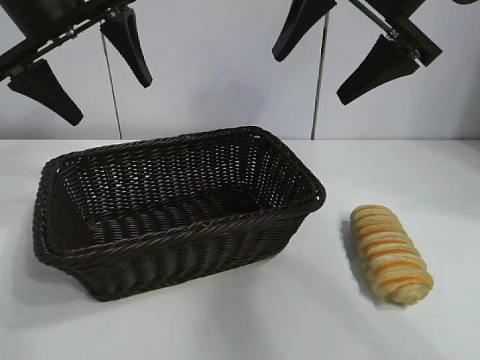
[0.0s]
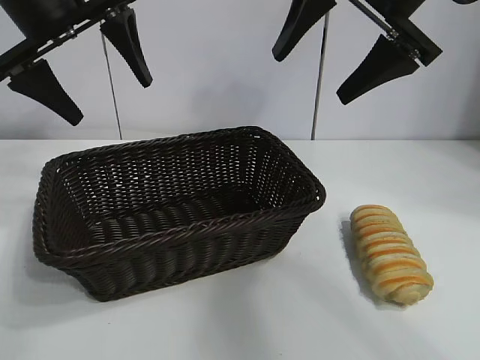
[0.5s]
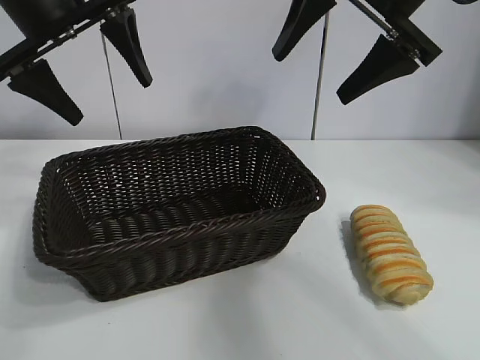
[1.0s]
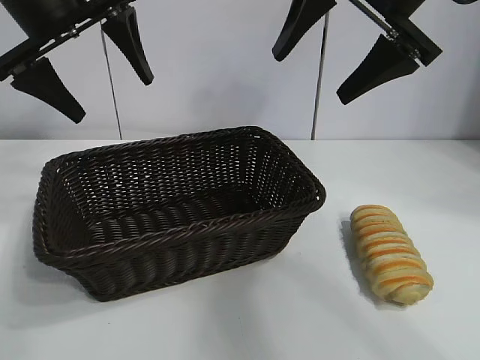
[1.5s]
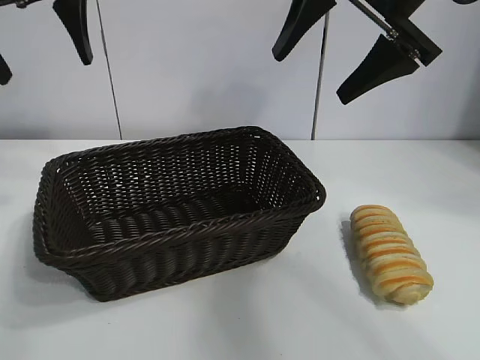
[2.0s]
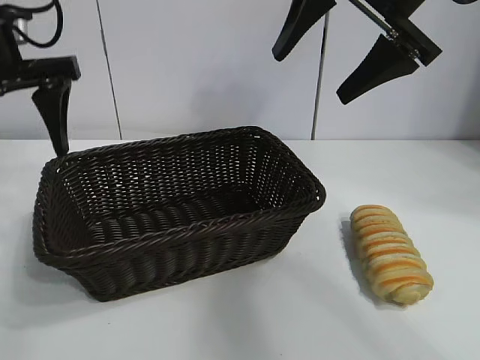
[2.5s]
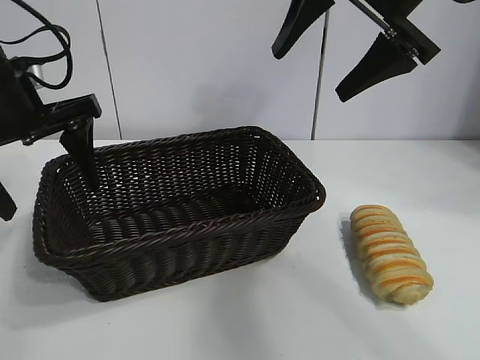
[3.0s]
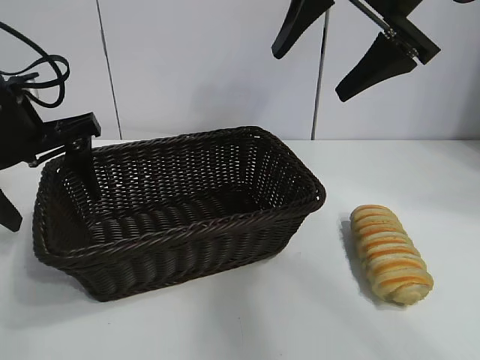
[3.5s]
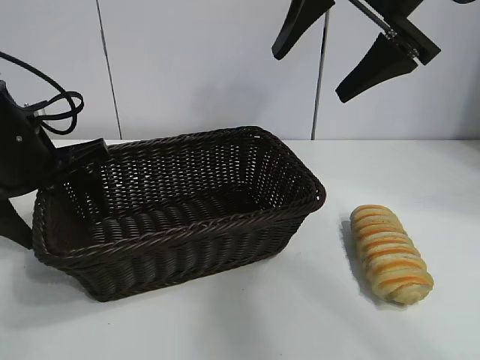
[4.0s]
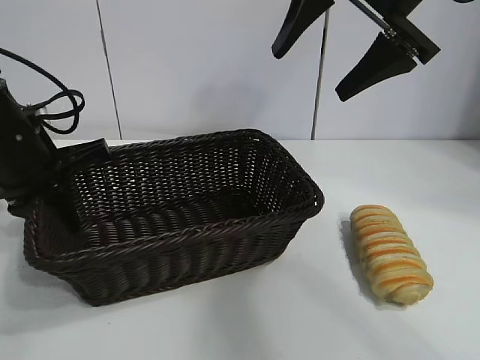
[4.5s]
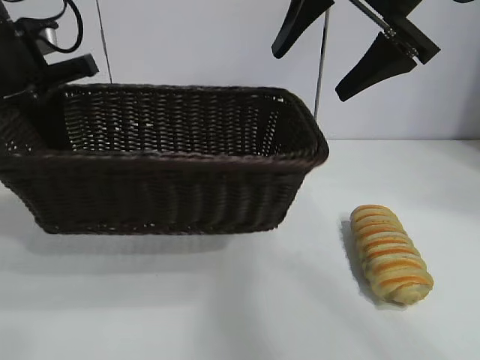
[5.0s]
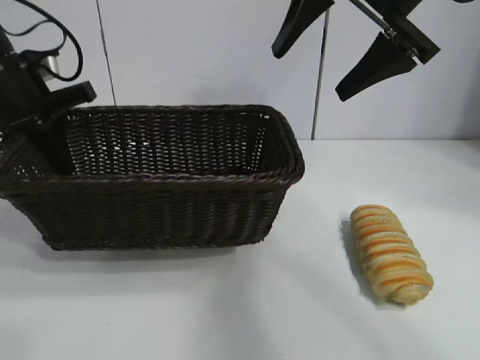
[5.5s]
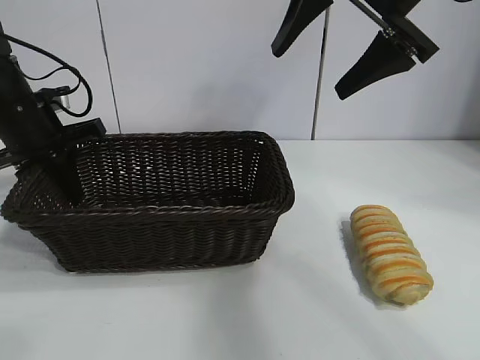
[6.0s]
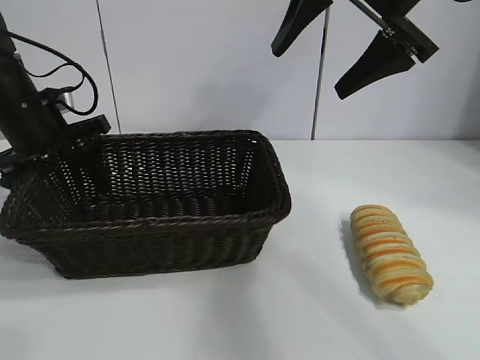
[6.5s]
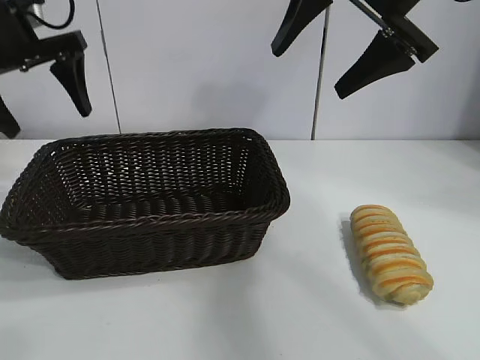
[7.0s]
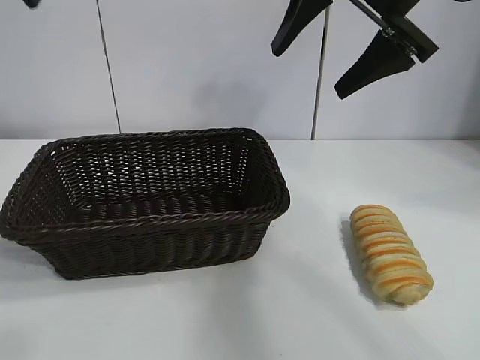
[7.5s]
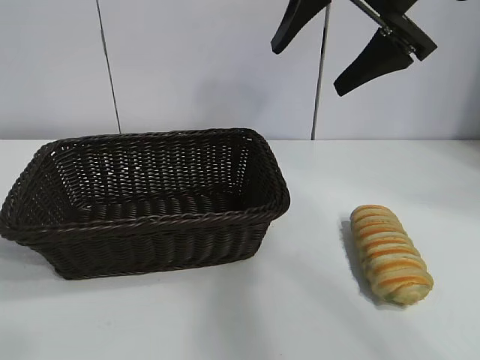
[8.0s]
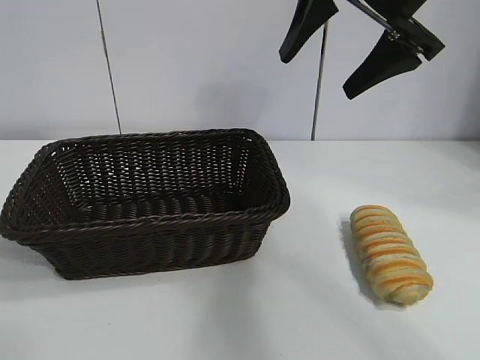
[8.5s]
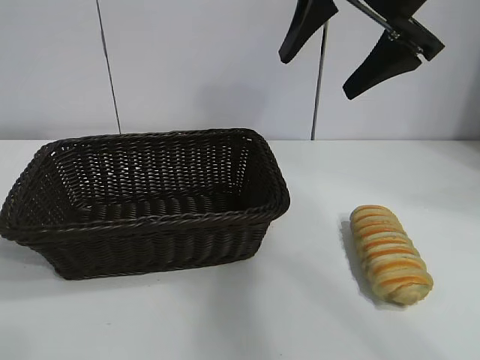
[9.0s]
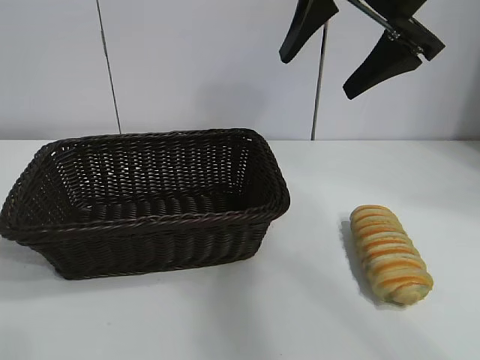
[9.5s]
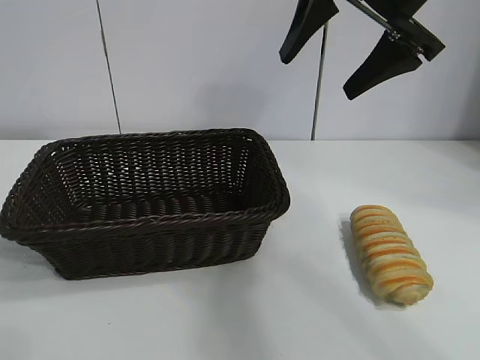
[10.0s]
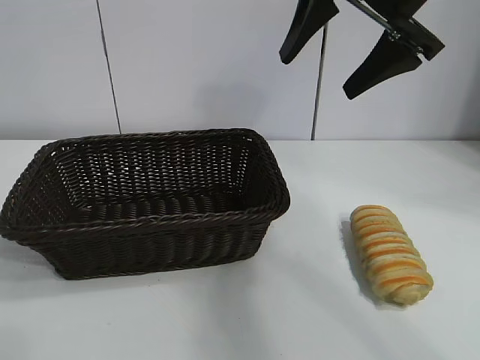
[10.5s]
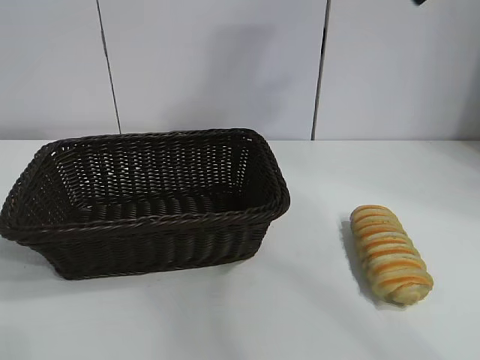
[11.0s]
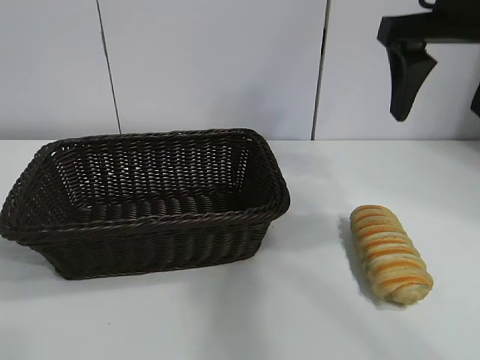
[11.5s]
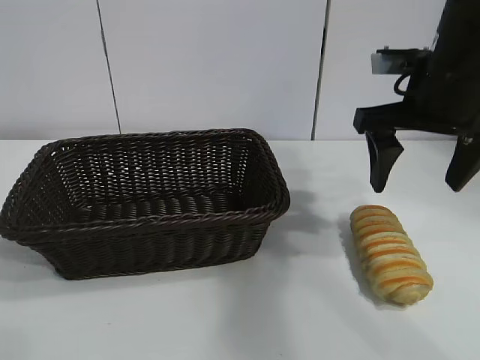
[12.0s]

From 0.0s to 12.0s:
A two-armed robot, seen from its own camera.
Task of the whole recording: pick up the long bread and put it into the basket.
Step, from 1.5s to 4.5s: Grasp the basket with the left gripper.
Step, from 5.0s to 6.5s: Place the basket in the center of the table with the left gripper.

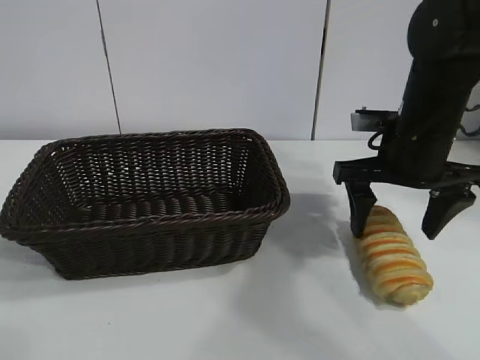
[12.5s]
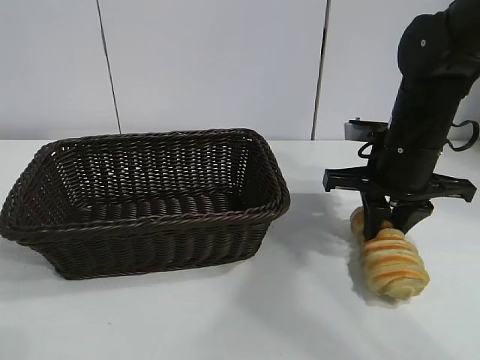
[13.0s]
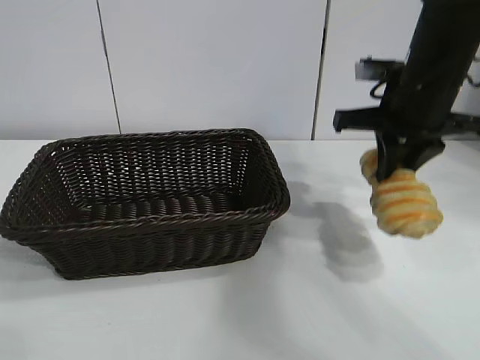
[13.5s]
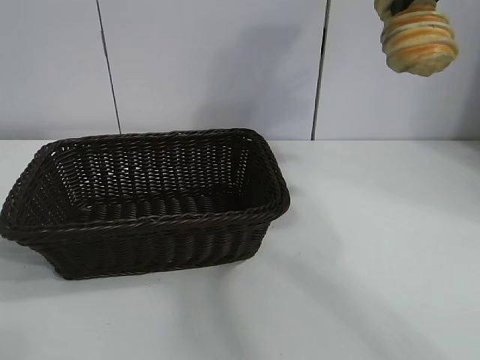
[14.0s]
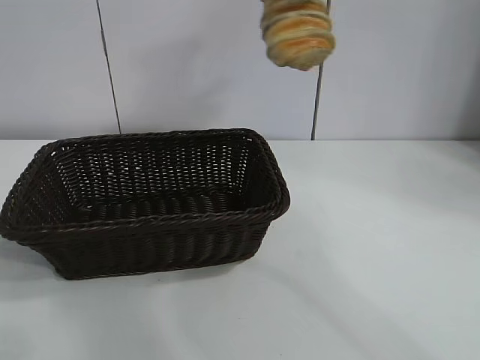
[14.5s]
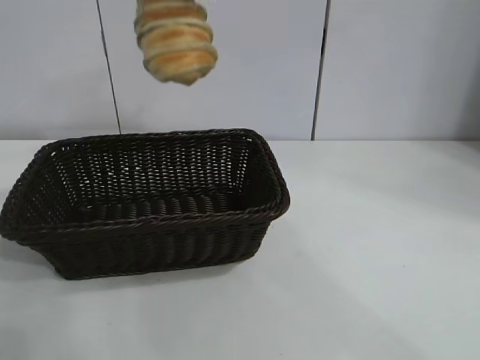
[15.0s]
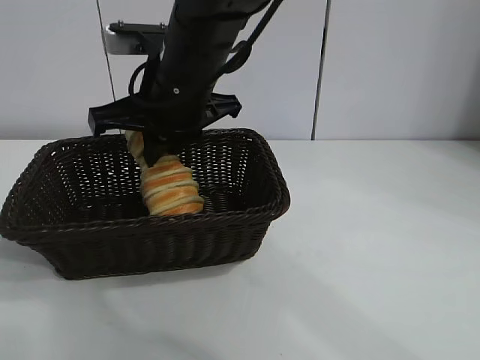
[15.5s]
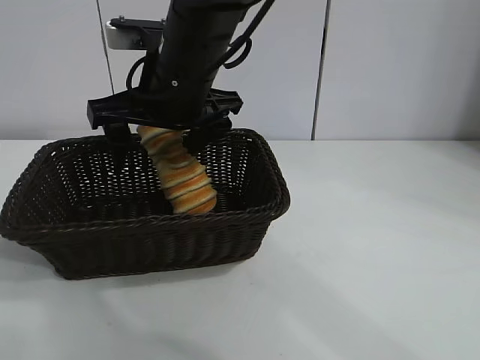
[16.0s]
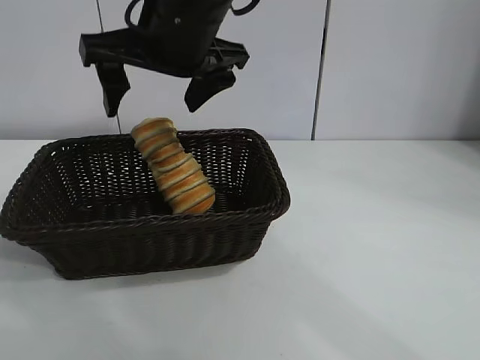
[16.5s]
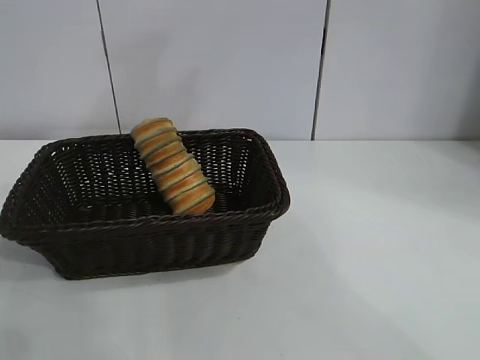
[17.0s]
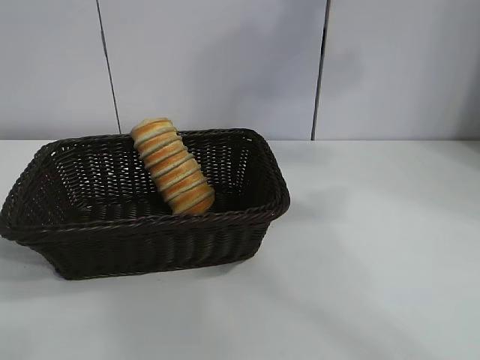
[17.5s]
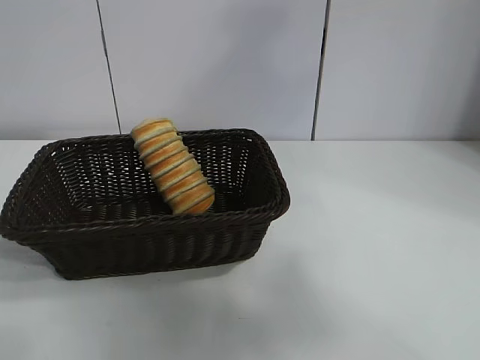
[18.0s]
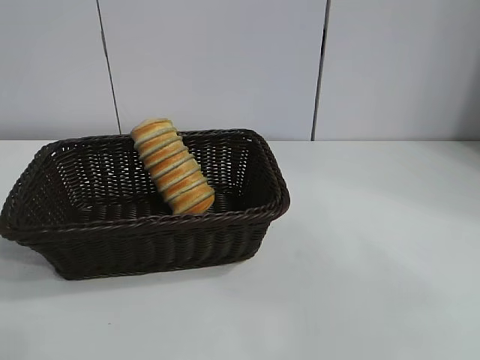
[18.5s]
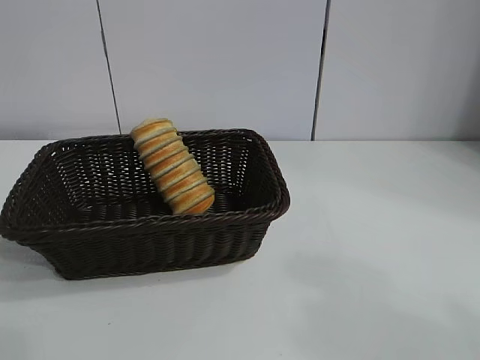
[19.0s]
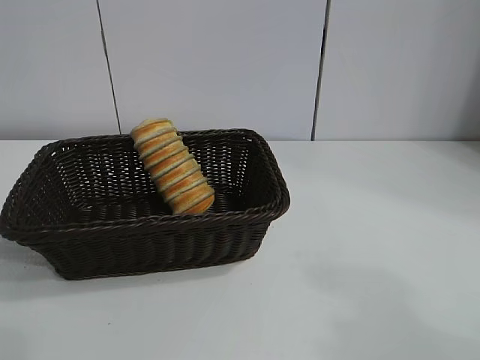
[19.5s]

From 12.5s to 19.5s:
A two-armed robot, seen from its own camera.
Task of the whole recording: pick up the long bread and put it into the basket.
Step, from 13.0s to 16.0s: Place the long bread in the basket with right gripper.

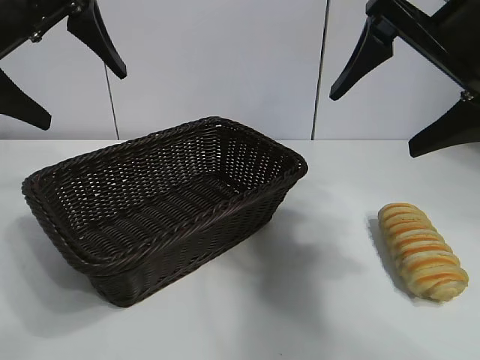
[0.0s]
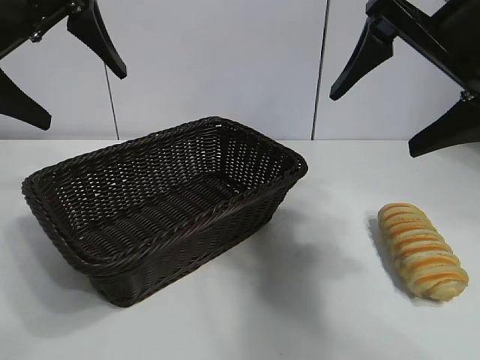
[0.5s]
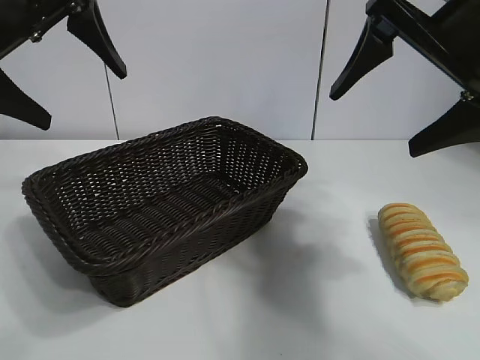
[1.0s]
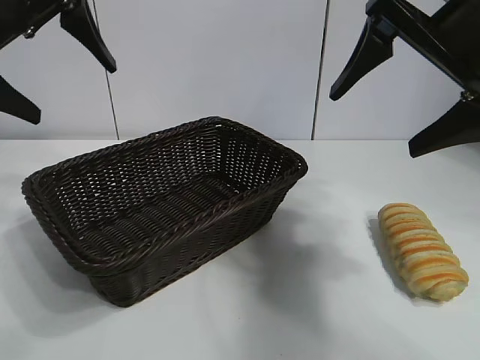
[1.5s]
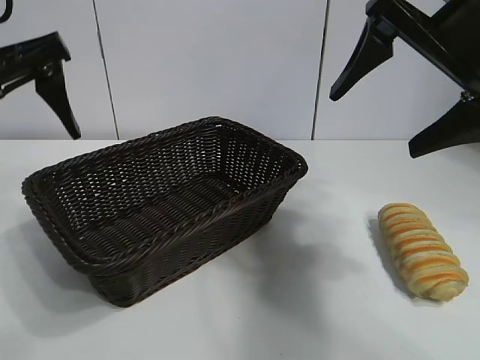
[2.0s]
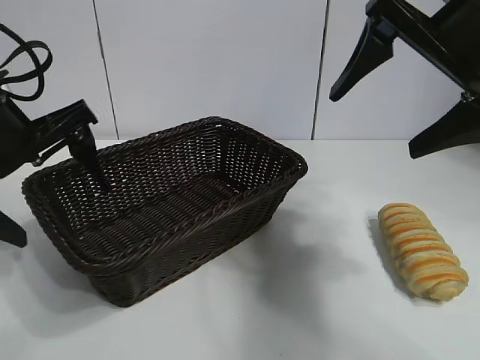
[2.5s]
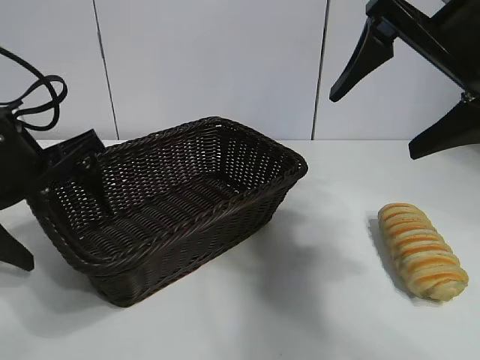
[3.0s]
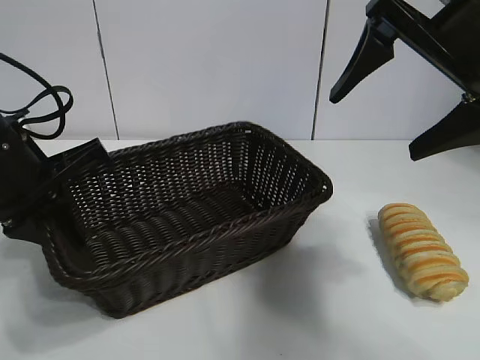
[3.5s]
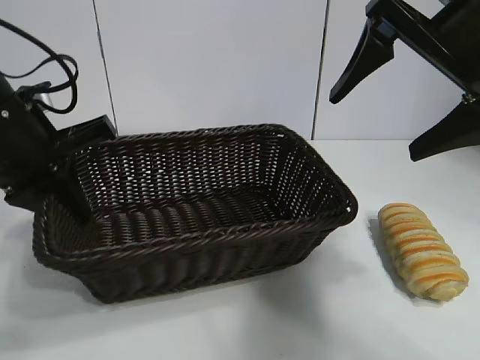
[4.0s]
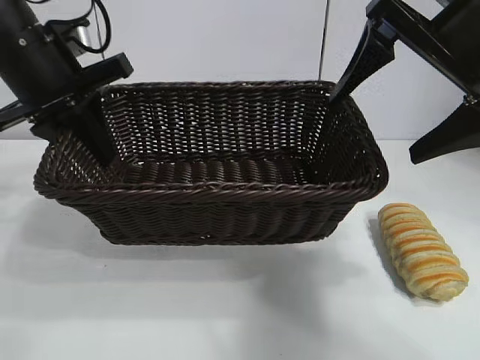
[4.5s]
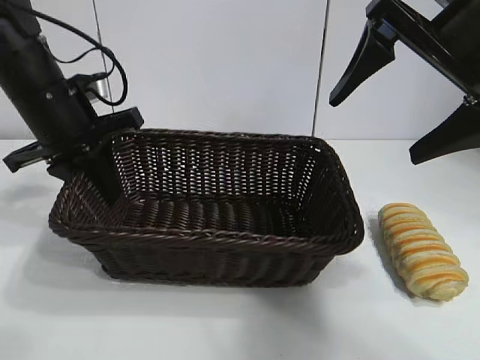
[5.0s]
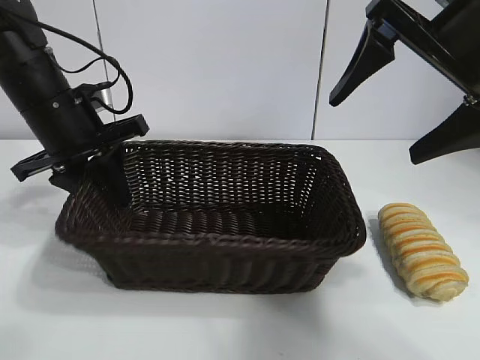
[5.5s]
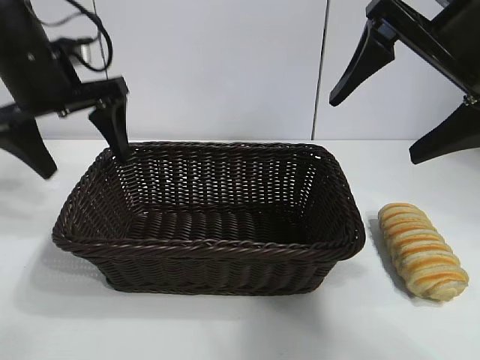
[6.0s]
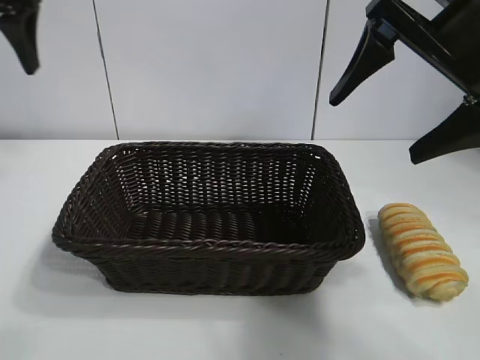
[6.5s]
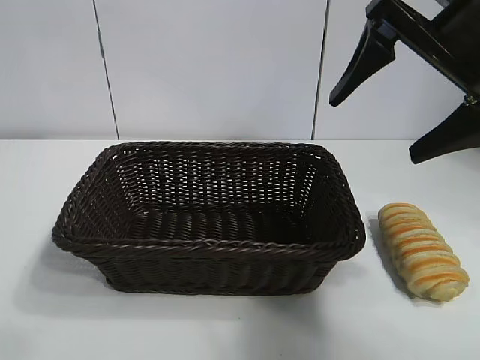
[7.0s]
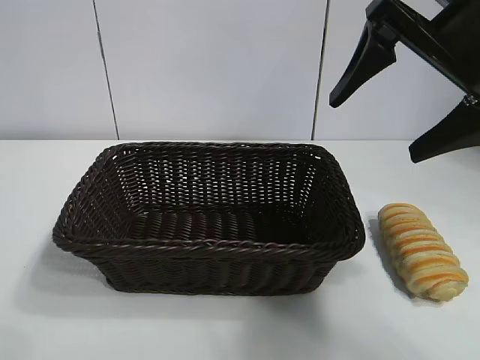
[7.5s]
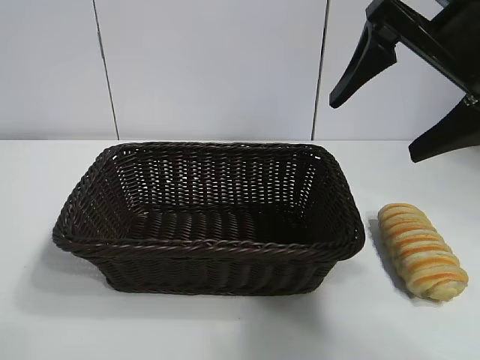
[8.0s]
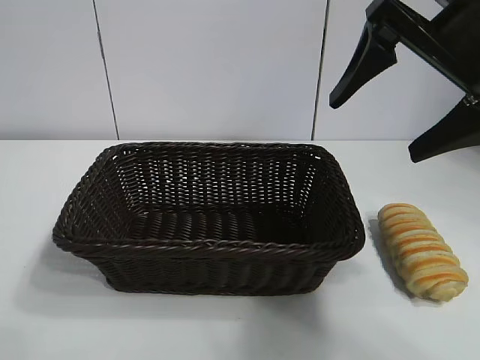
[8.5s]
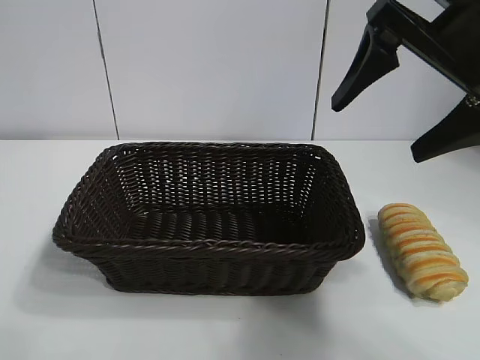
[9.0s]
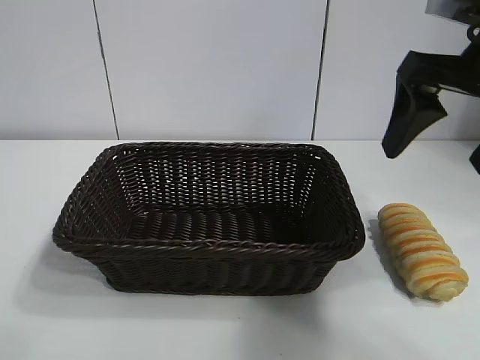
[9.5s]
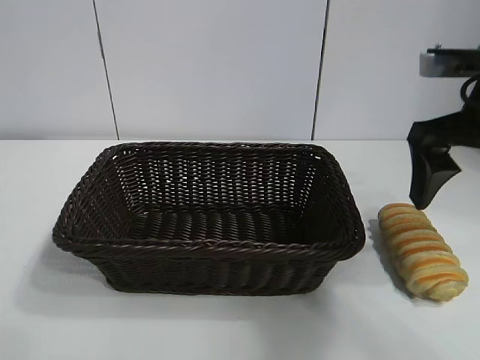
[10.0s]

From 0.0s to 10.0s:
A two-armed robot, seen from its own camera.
Task of the whole recording: pick up the long bread and put it into the basket.
Step, from 1.5s to 3.0s: Grasp the basket with the left gripper.
Step, from 3.5s to 5.5s: Place the basket in the center of the table with the left gripper.
